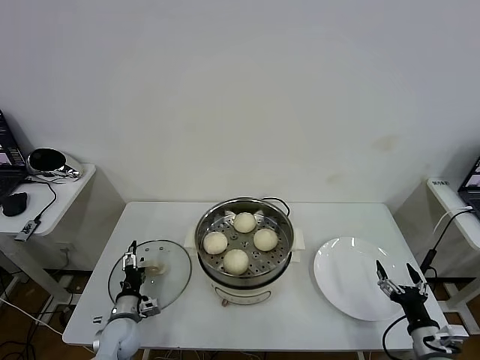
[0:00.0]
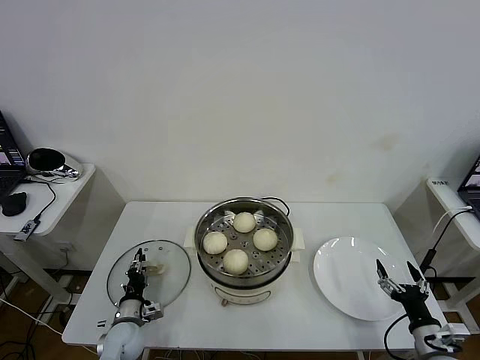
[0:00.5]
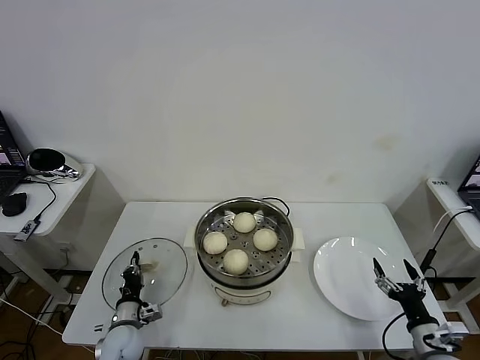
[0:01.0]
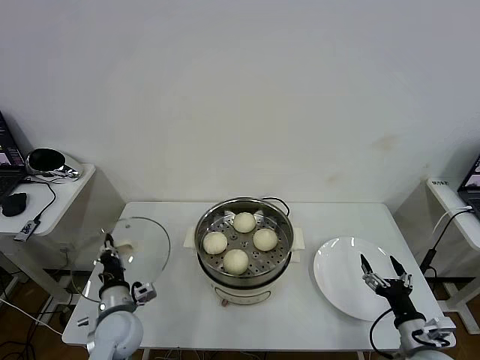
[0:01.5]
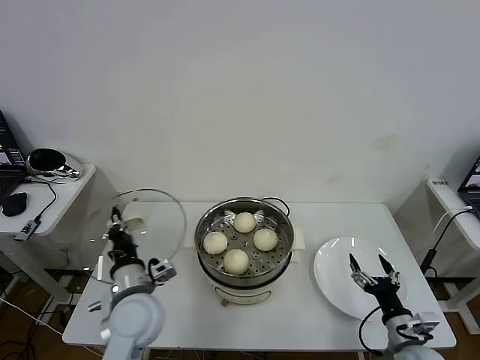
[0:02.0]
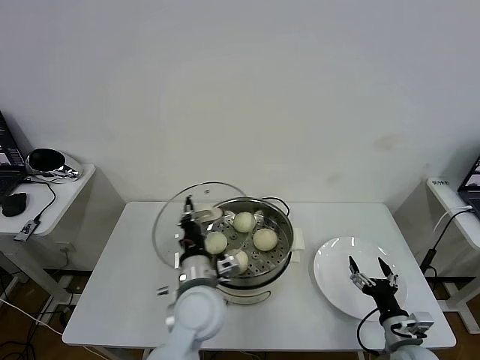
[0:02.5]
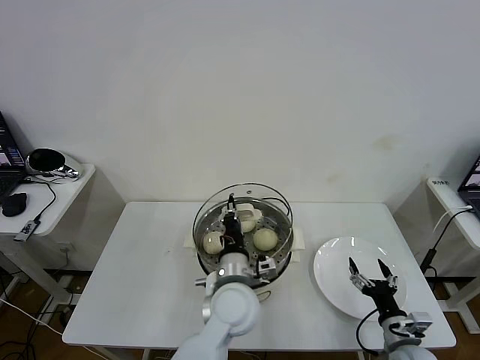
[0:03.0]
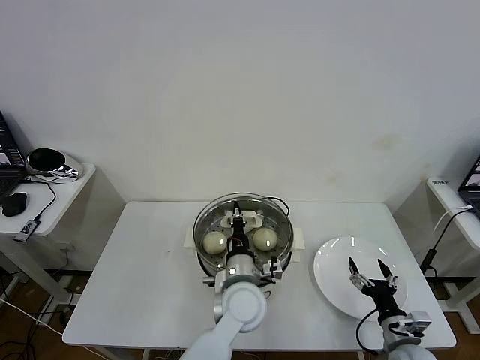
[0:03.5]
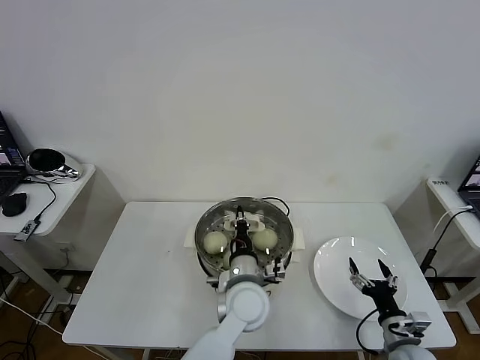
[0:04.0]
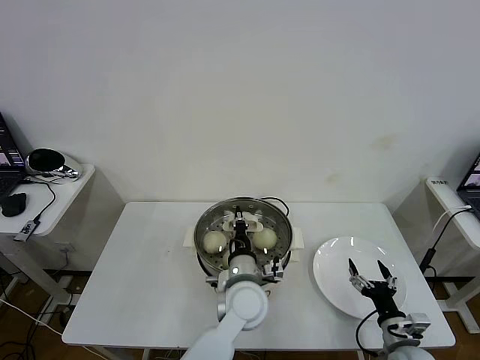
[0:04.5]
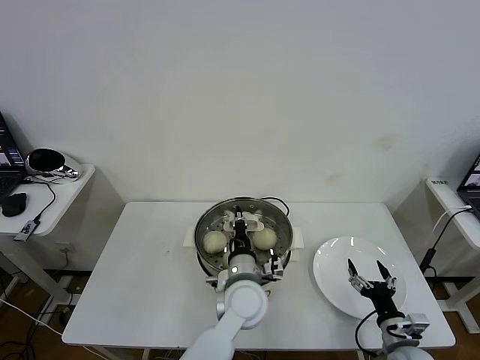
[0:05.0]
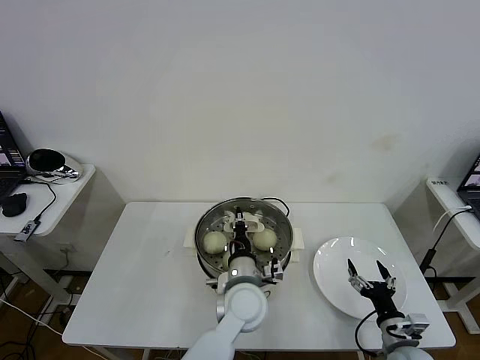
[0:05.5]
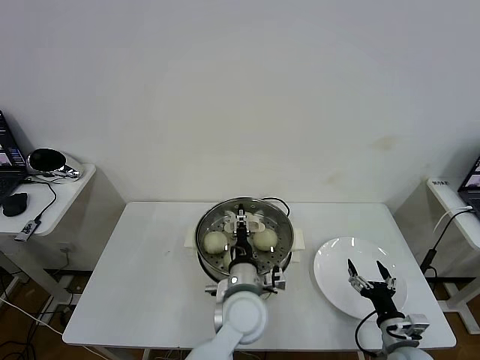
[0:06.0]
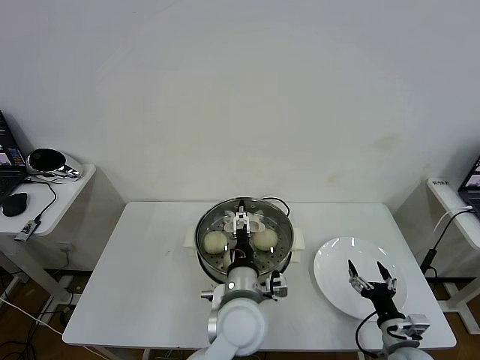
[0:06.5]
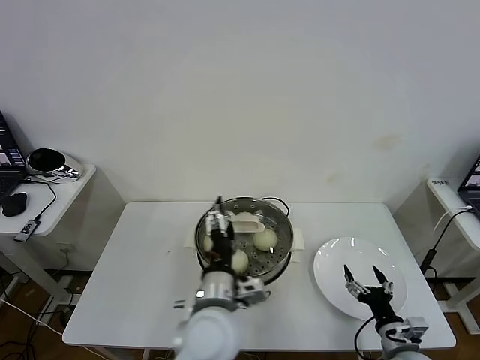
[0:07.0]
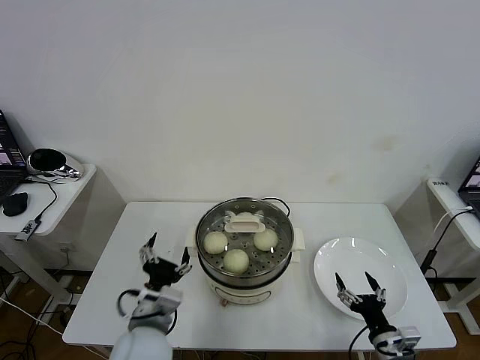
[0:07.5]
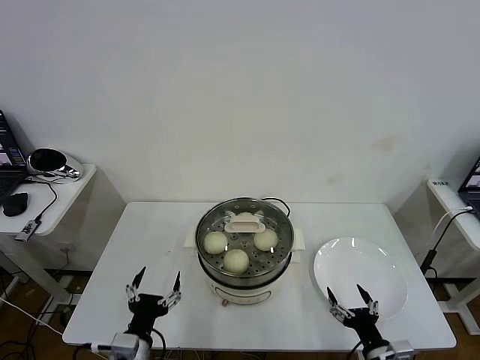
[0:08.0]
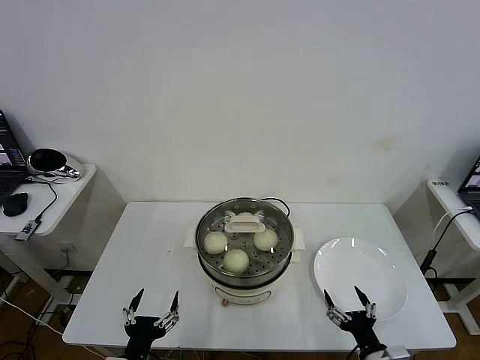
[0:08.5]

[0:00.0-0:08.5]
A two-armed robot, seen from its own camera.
Task of the whole recording: take steamed baozi put them in steamer then cover it.
Step, 0:01.5 to 0:06.0: Place the pot lid on the steamer with left gripper.
0:00.0 to 0:02.0: The left gripper shifts some 20 cm upward and to the right, and closes; the right gripper ends up approximately 5 cm from where it was.
0:02.0 to 0:04.0: The left gripper travels to the right by approximately 20 cm.
0:04.0 to 0:06.5: The left gripper changes place by roughly 5 cm, and opens up.
0:06.5 to 0:08.5: The right gripper shifts about 10 cm backward and to the left, while the left gripper is displaced to the left and backward by roughly 30 cm.

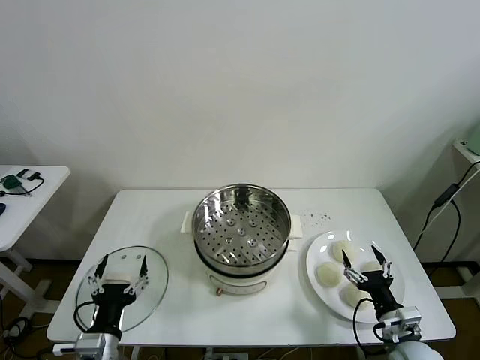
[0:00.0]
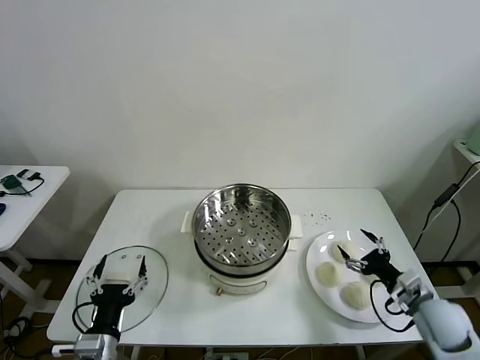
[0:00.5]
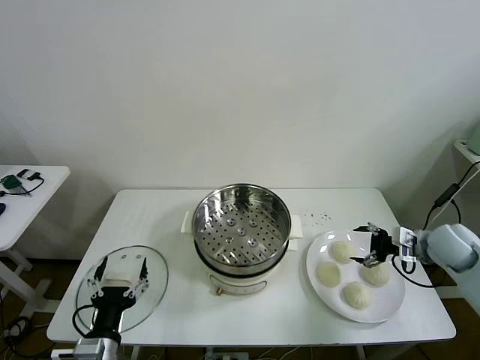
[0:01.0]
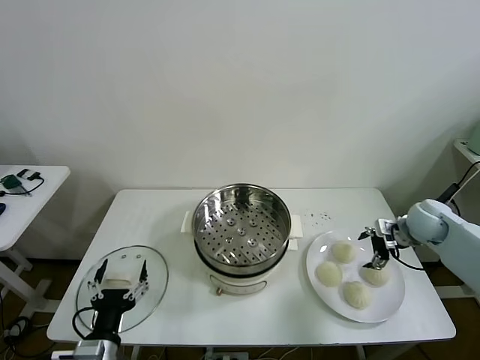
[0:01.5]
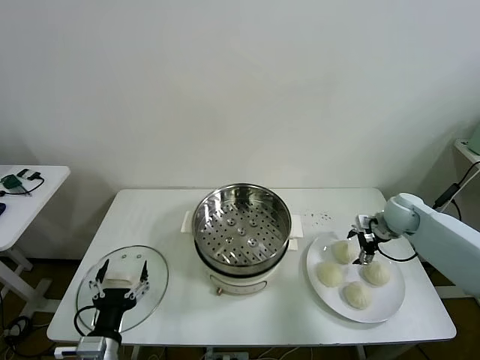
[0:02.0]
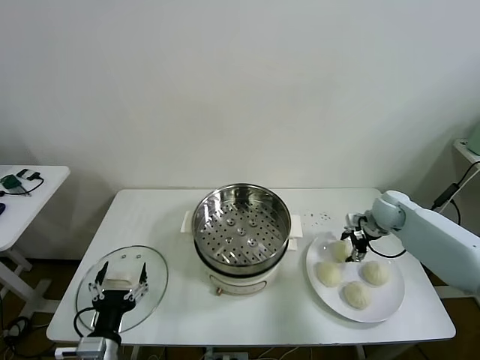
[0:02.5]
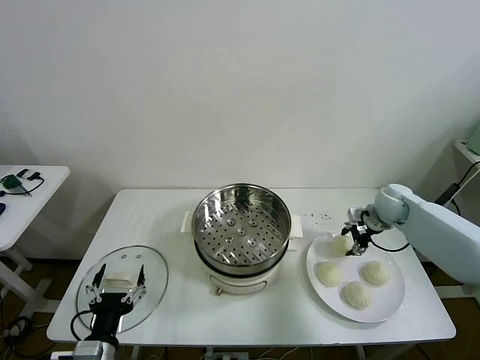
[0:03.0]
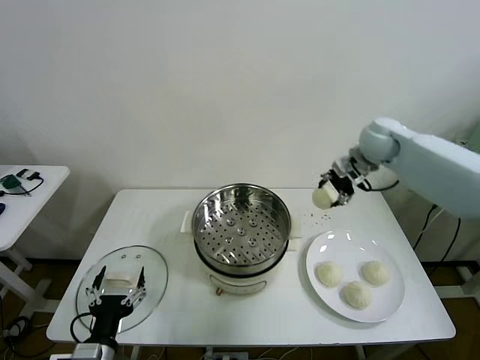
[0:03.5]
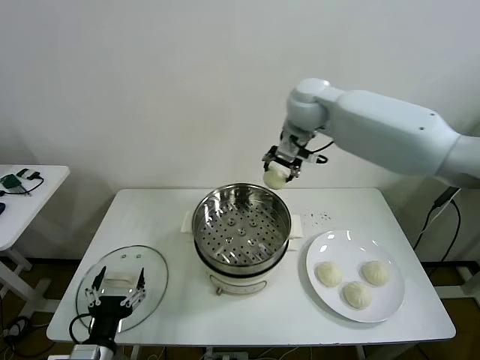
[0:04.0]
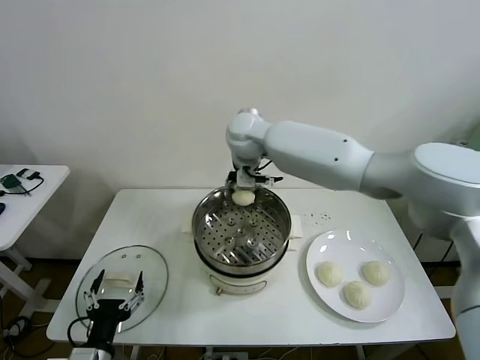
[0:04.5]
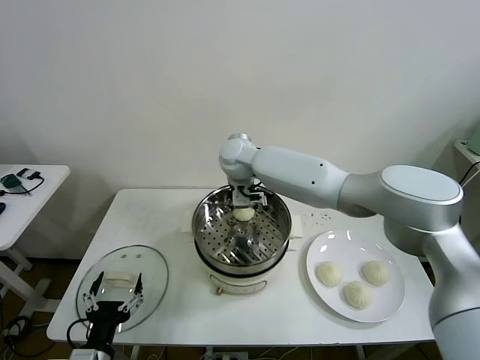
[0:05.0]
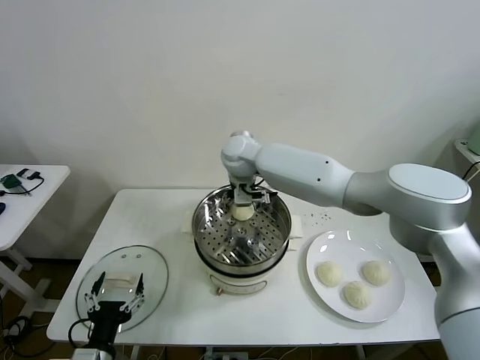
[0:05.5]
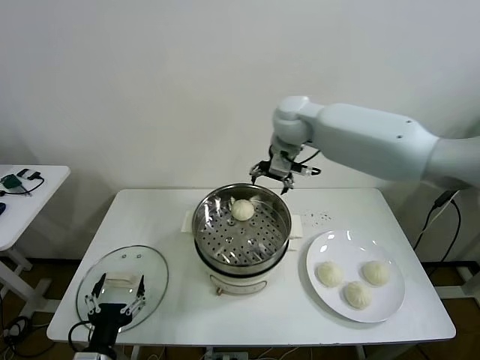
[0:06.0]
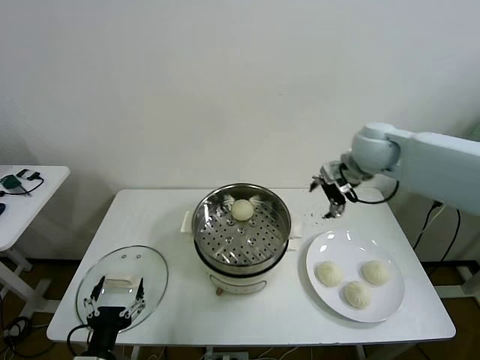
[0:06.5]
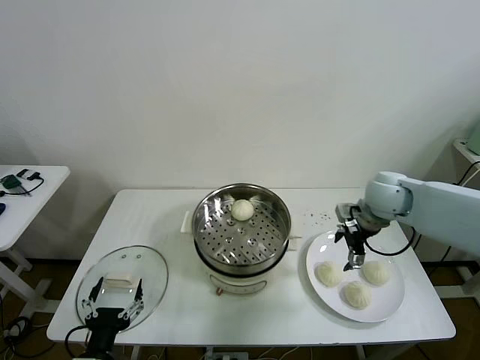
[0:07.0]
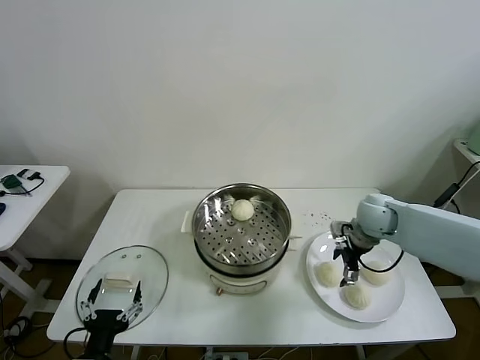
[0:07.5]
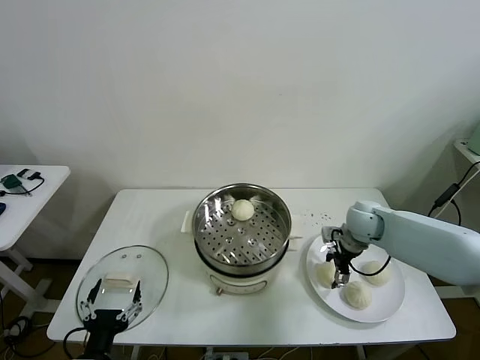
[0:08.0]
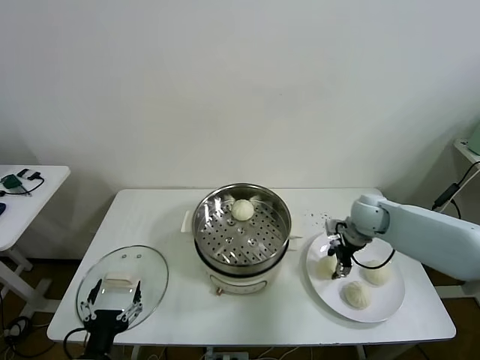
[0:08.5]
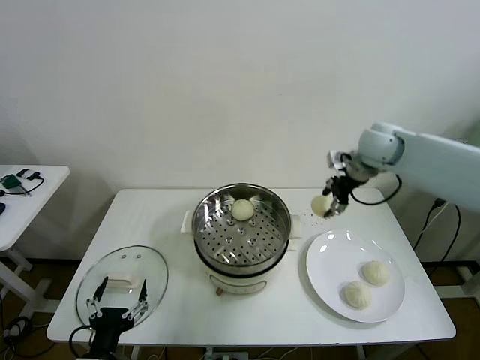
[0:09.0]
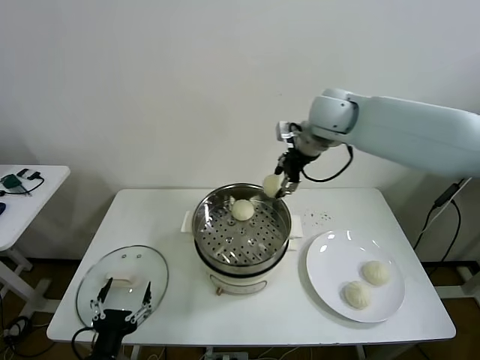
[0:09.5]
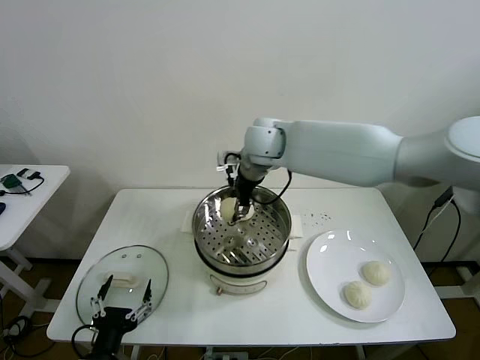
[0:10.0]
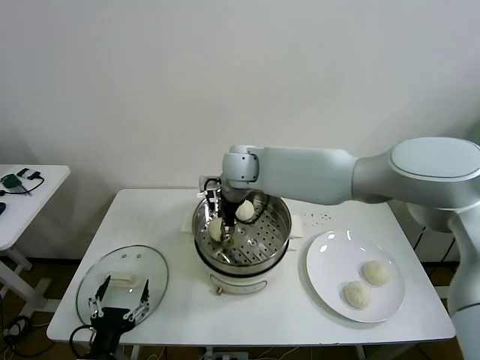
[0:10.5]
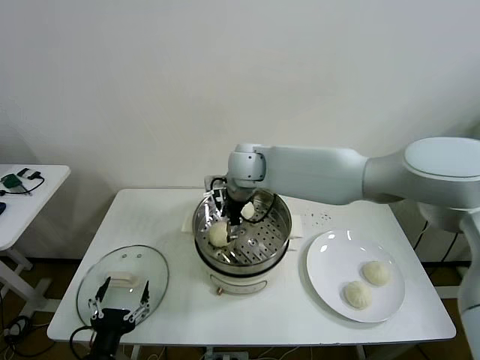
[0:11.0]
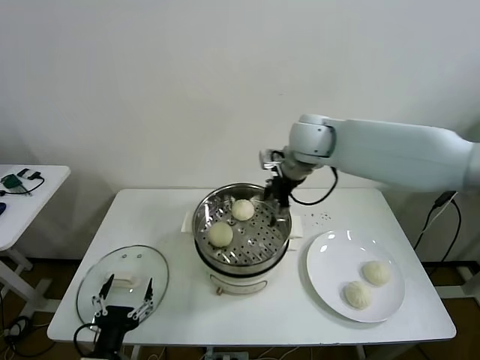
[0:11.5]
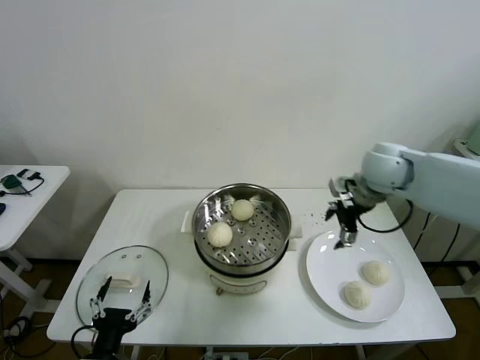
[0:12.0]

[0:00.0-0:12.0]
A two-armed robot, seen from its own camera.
Task of the whole recording: take steamed baozi put them in steamer then cover it.
Step, 0:00.0 to 0:02.5: Grasp the baozi in the plate with right gripper.
Step, 0:03.0 to 0:05.0: Place the baozi on the steamer with right gripper.
Step, 0:05.5 to 0:08.0: Grasp the baozi in the plate with right gripper.
Step, 0:08.5 to 0:10.5: Place the baozi on the steamer with right gripper.
0:02.0 to 0:04.0: The right gripper goes some 40 cm to the left and upward, and closes.
0:04.0 to 0:06.0: The right gripper travels to the left and back again, some 10 cm each way, and opens its fingers.
0:06.0 to 0:08.0: The right gripper is displaced downward and to the right by roughly 30 cm, and closes.
0:08.0 to 0:10.0: The right gripper shifts approximately 35 cm to the left and upward, and closes its fingers.
0:10.0 to 0:12.0: The right gripper travels to the right by about 30 cm, and opens.

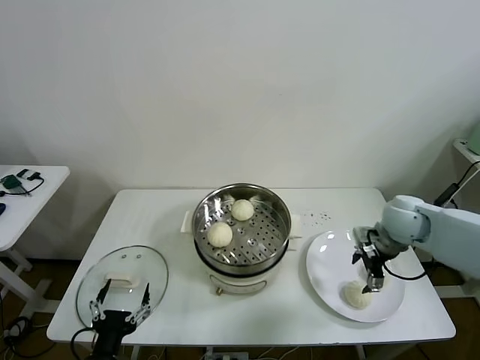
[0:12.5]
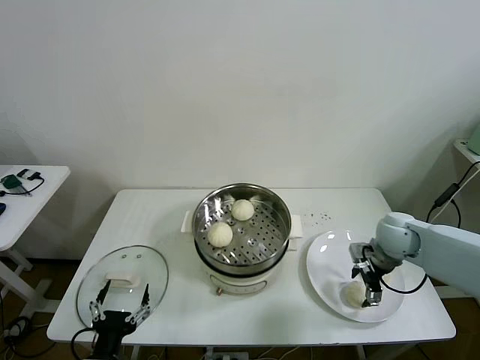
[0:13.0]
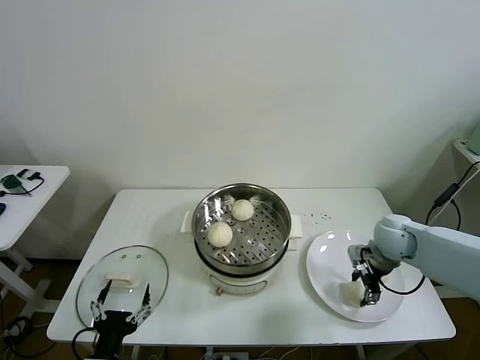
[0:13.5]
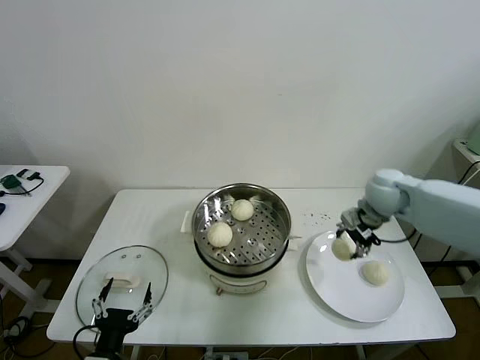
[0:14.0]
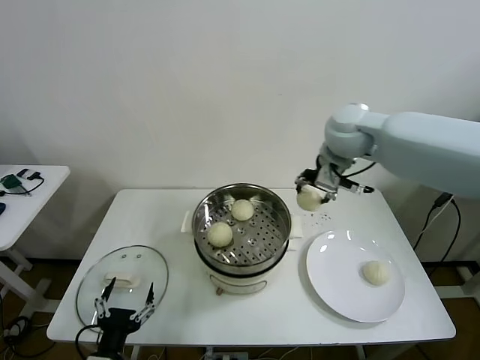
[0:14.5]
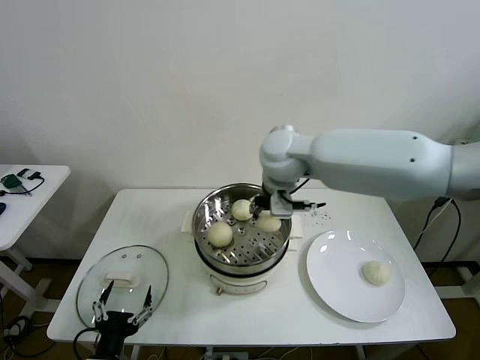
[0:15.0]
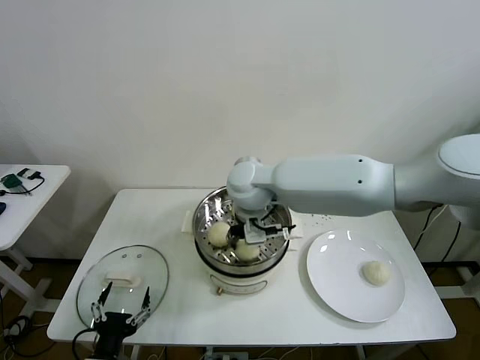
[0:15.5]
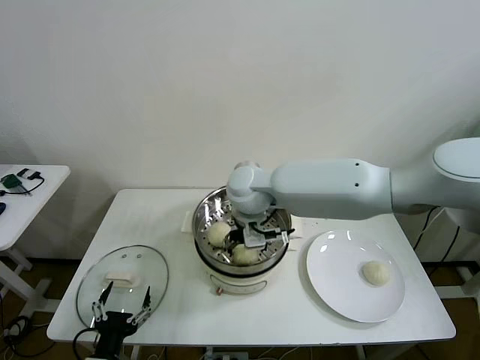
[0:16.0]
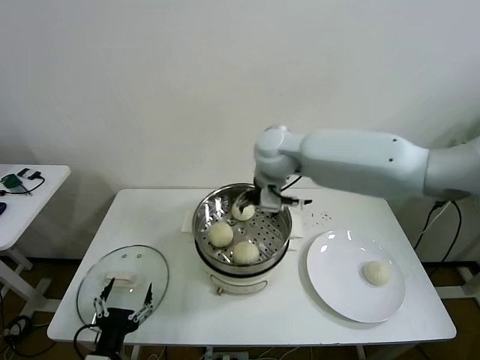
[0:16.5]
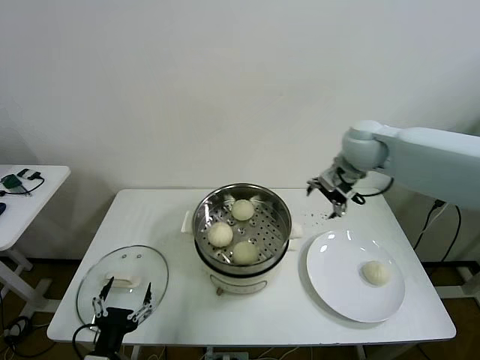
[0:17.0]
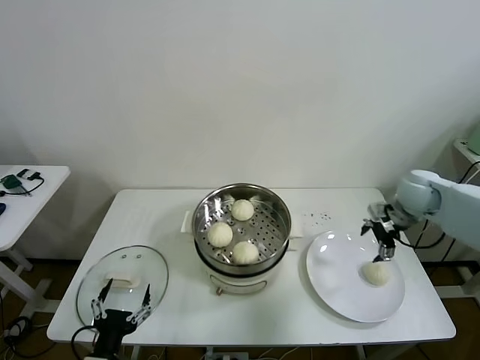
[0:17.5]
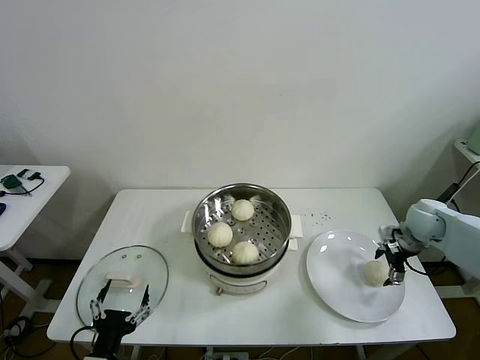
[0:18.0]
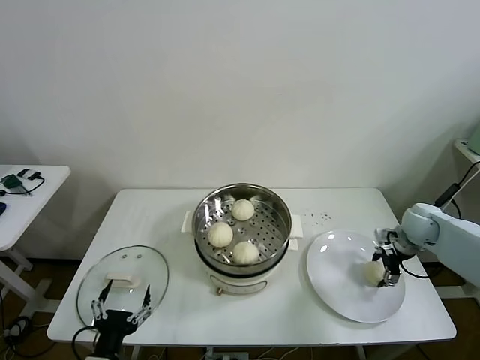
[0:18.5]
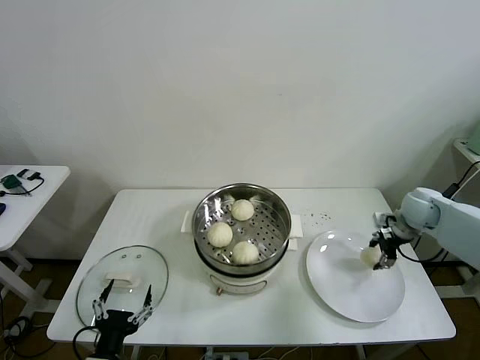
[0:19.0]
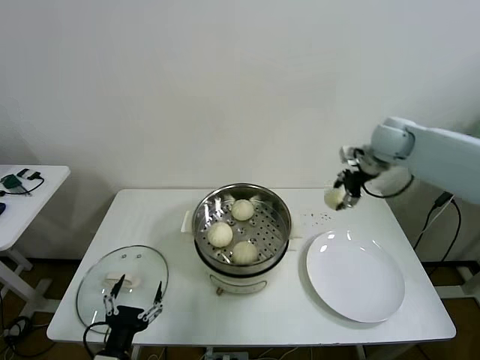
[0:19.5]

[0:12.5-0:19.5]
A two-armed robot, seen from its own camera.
Task of the whole recording: take steamed baozi put them in steamer then cover it.
Step, 0:14.0 to 0:16.0: Place the baozi on the steamer with right gripper.
Step, 0:16.5 to 0:18.5: Grasp the baozi in the plate with right gripper.
0:12.5 to 0:14.5: The right gripper heads upward and to the left, covering roughly 25 cm, and closes its fingers.
0:14.5 to 0:16.0: The right gripper heads to the left and downward, covering some 20 cm, and opens.
0:16.0 to 0:17.5: The right gripper goes approximately 40 cm to the right.
0:17.5 to 0:19.5: The right gripper goes about 15 cm upward, to the left and forward, and closes up.
